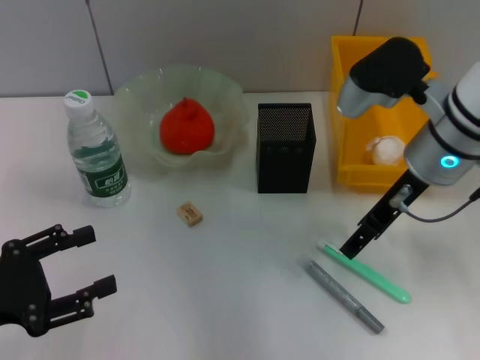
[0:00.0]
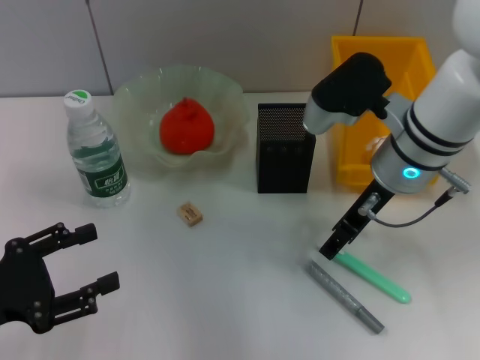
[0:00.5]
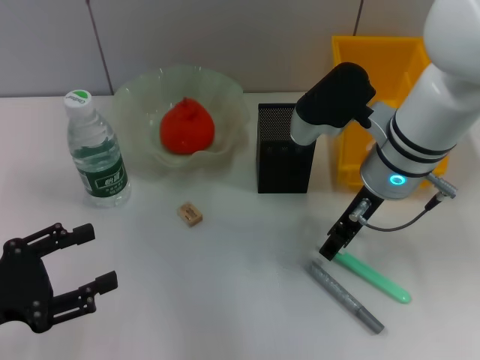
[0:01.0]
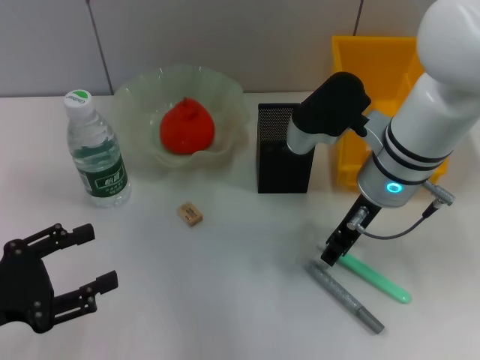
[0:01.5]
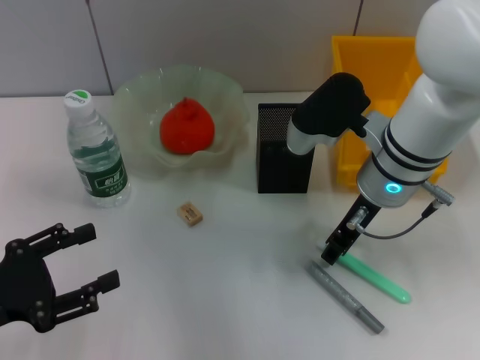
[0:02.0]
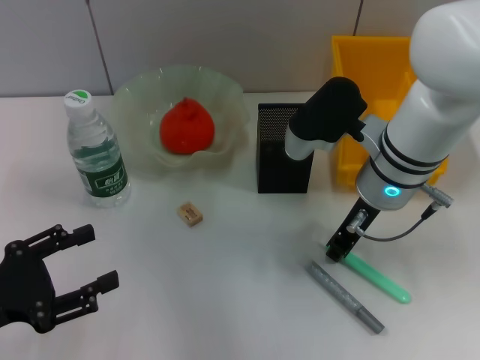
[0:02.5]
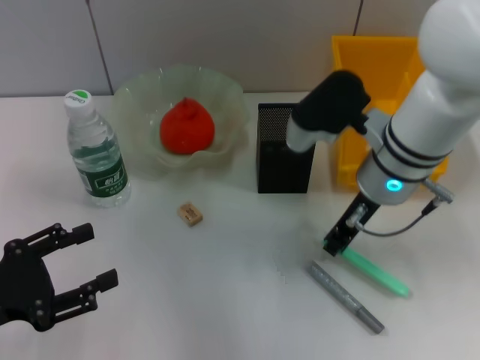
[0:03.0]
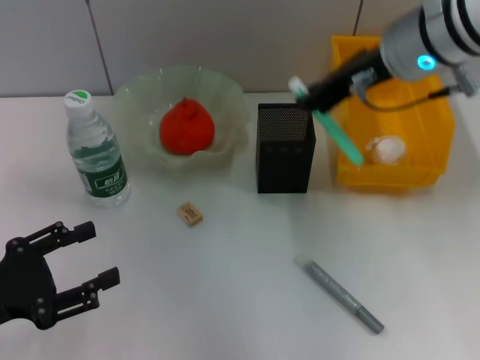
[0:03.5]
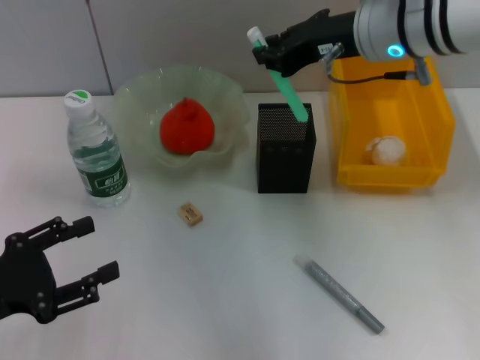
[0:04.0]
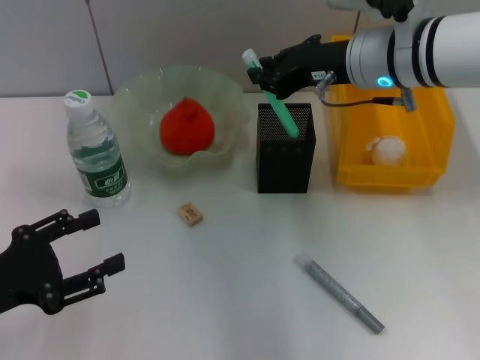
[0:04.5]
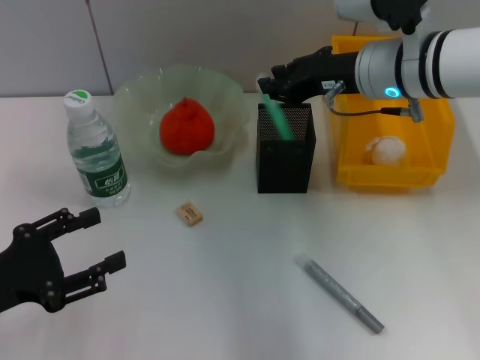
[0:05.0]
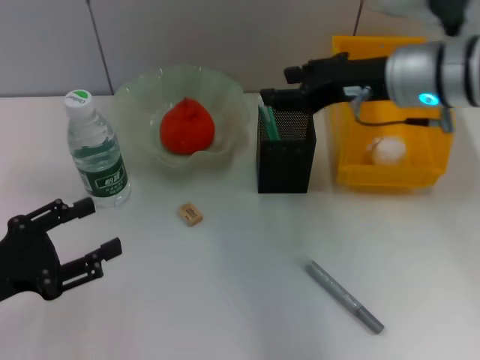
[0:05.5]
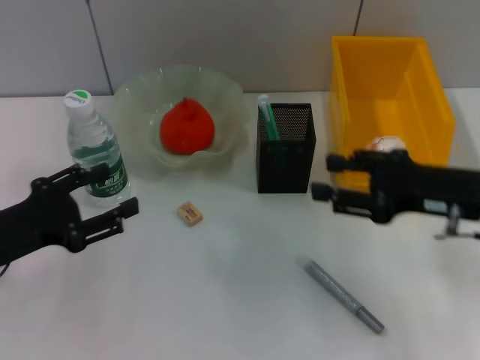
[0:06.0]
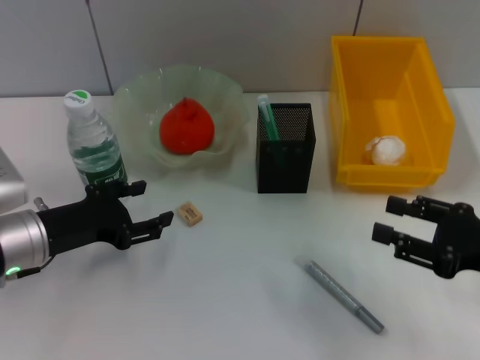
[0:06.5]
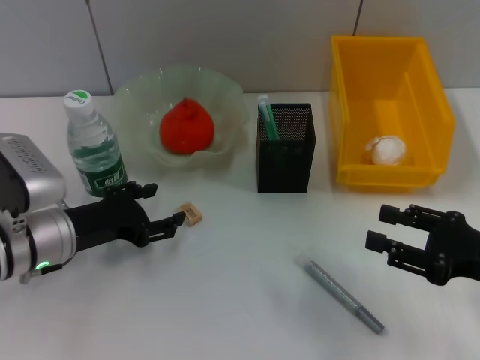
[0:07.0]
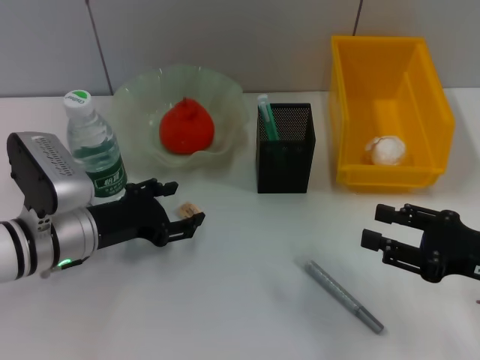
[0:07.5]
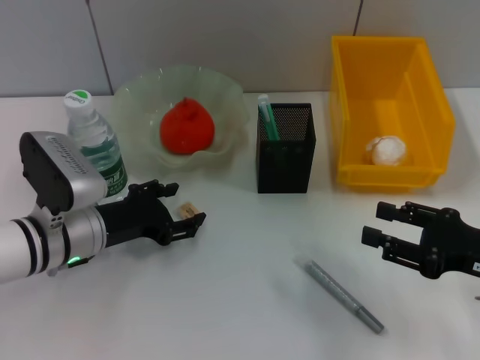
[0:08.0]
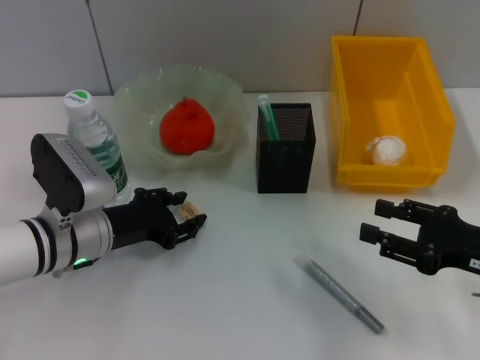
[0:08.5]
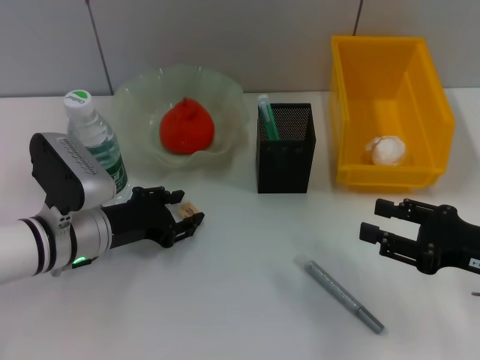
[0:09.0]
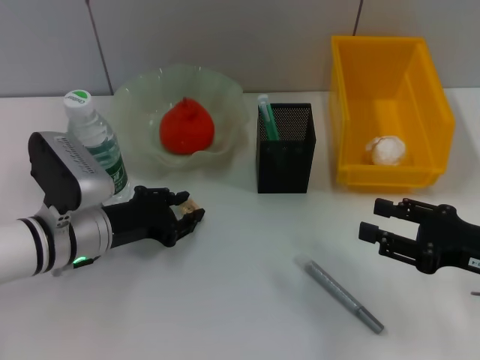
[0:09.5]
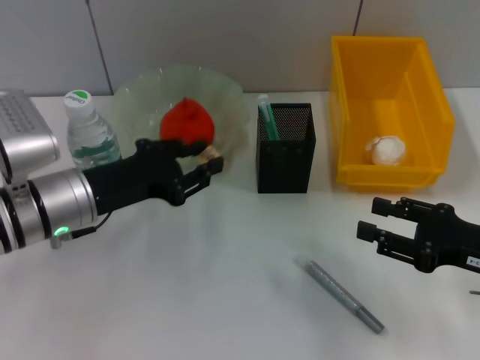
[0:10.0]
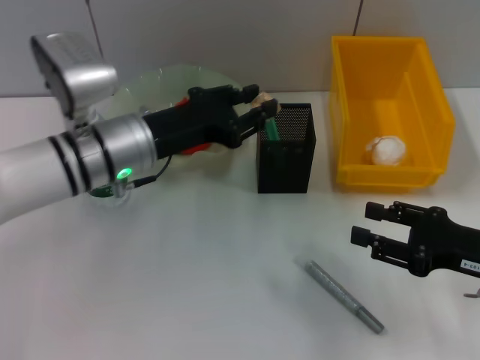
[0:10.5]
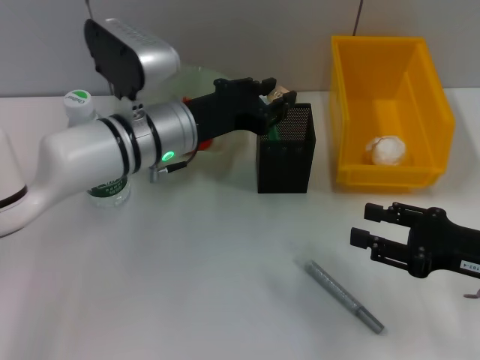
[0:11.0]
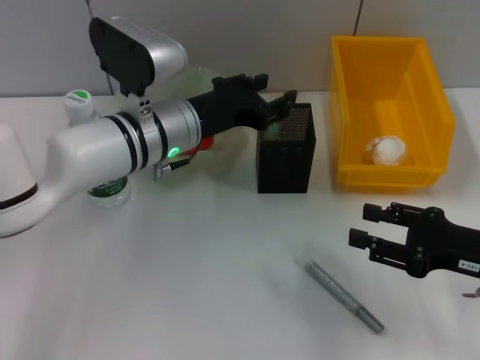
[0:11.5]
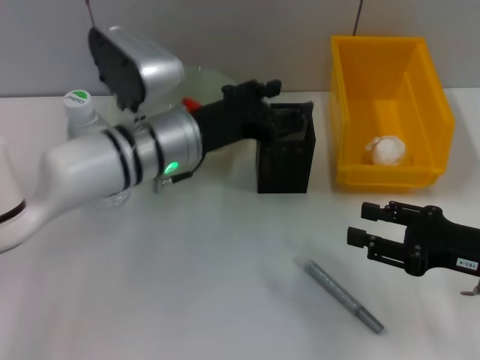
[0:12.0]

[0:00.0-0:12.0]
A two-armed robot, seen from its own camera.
Step, 0:00.0 to 0:02.5: Grab the blue utility knife with the right hand.
Step, 0:03.0 to 0:05.0: Place the blue utility knife into the pen holder with the right hand.
Step, 0:05.5 to 0:09.0: Grab the eraser with the left hand.
Step, 0:09.5 to 0:11.5: Place the eraser into the pen holder with the left hand.
0:00.0 to 0:02.0: The right gripper moves approximately 5 cm, and closes its fingers.
0:02.0 to 0:04.0: The right gripper heads upward, covering roughly 10 cm, and closes its fingers.
0:04.0 to 0:06.0: The right gripper shifts about 20 cm to the right, backward and downward, and opens. Meanwhile the left gripper is displaced forward by about 5 cm.
0:06.0 to 0:08.0: The left gripper goes about 10 cm to the right and forward. Meanwhile the right gripper shifts about 5 cm downward.
0:08.0 to 0:10.0: The left gripper shifts some 5 cm upward, and closes its fingers.
0:10.0 to 0:12.0: The left gripper is displaced to the right by roughly 10 cm, and opens its fingers.

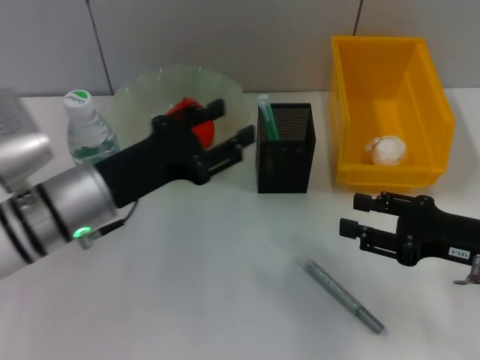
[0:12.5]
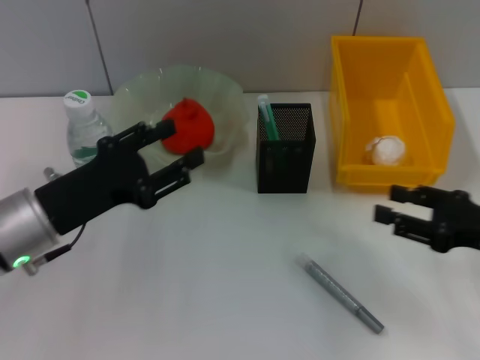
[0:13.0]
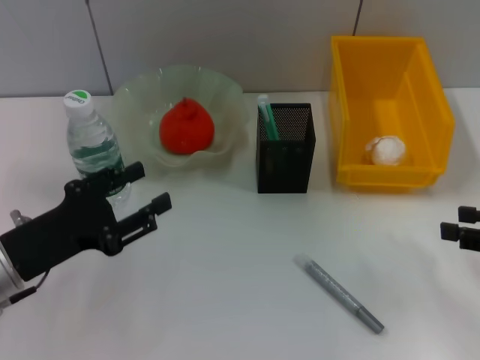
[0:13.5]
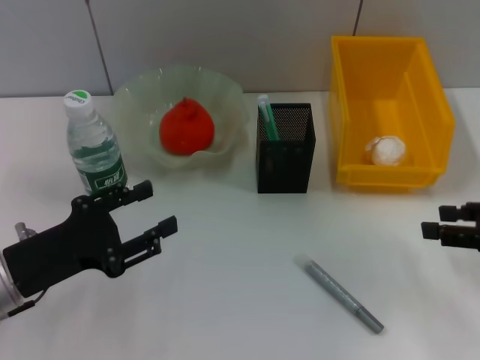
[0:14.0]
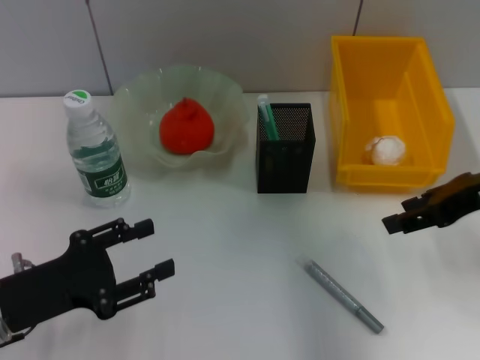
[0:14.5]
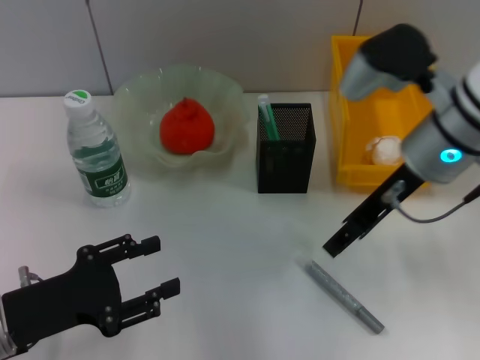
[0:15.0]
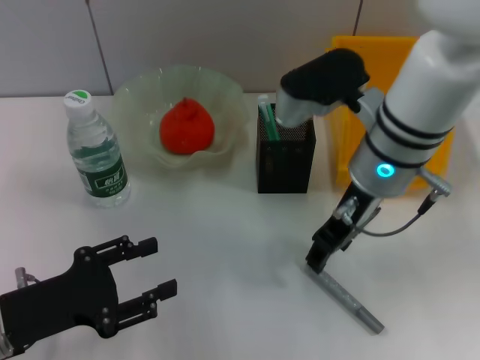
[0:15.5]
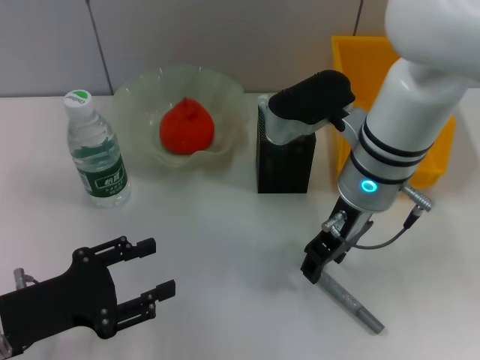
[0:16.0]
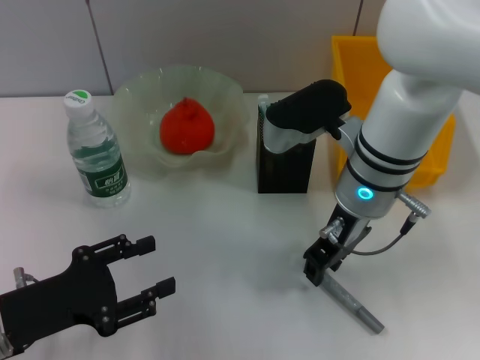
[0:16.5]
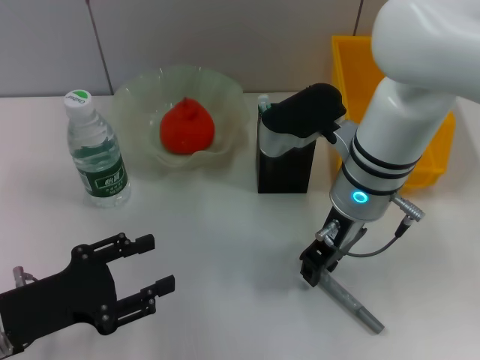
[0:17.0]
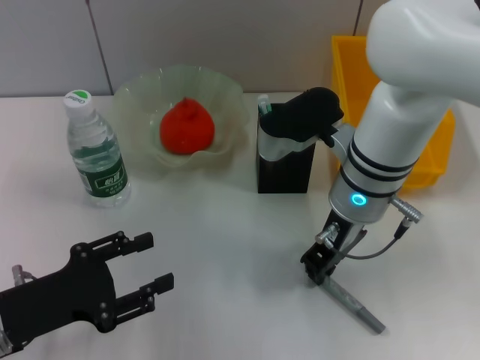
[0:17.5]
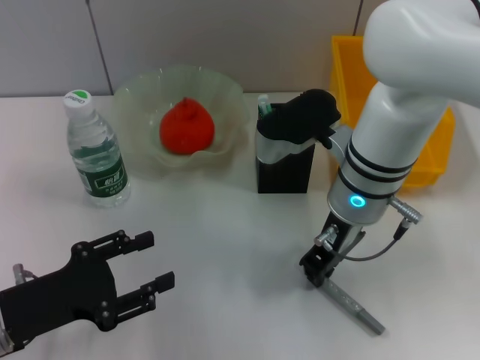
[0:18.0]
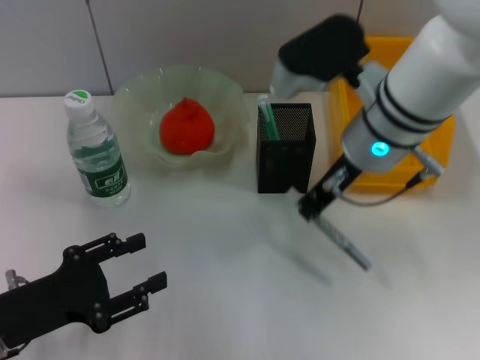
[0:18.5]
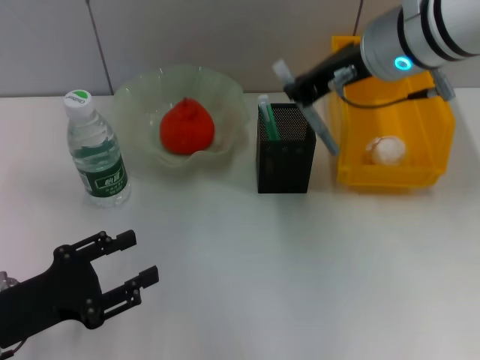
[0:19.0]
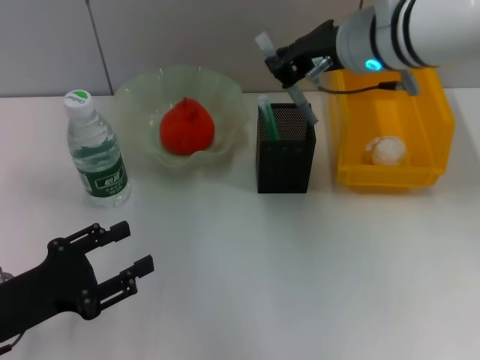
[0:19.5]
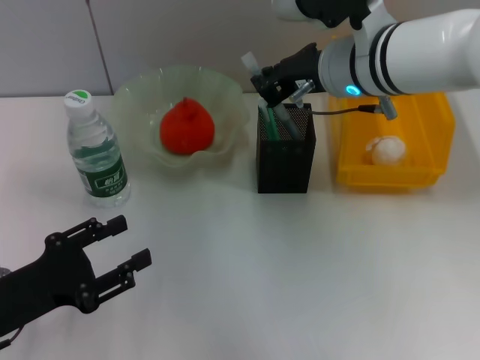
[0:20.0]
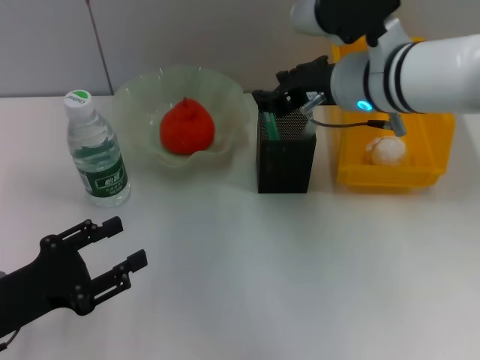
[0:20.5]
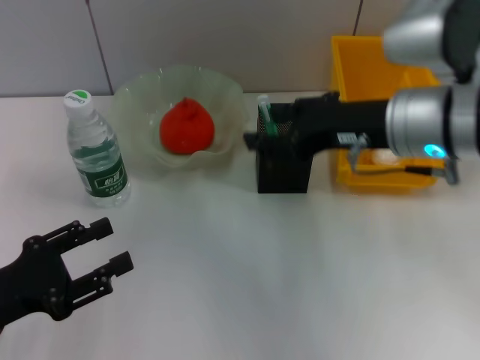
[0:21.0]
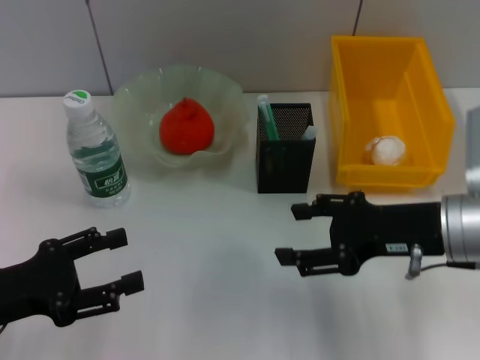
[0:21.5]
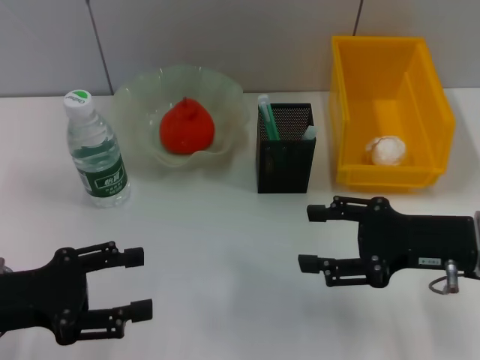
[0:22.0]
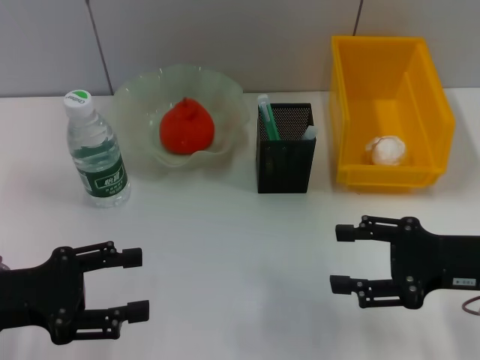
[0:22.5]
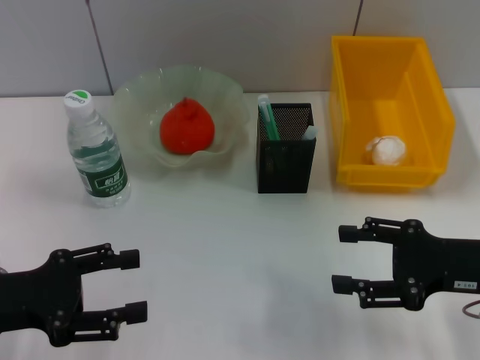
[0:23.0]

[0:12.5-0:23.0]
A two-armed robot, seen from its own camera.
Step, 0:12.5 to 0:17.5: Grab the gray glue with the right hand.
Step, 0:18.0 to 0:20.5: Place the gray glue into the pen holder with the right hand.
0:12.5 to 0:14.5: The right gripper heads upward and forward, covering about 10 cm; the left gripper goes approximately 15 cm to the left and backward.
0:14.5 to 0:16.5: The right gripper goes some 20 cm to the left.
0:16.5 to 0:19.0: The right gripper goes approximately 10 cm upward.
0:19.0 to 0:21.0: The right gripper moves backward and downward, about 10 cm, and opens up.
0:21.0 to 0:23.0: The right gripper goes about 15 cm to the right, downward and backward, and opens its fingers.
